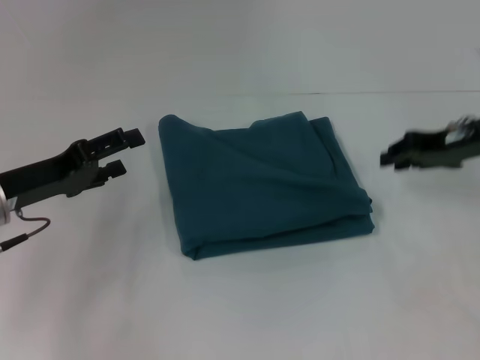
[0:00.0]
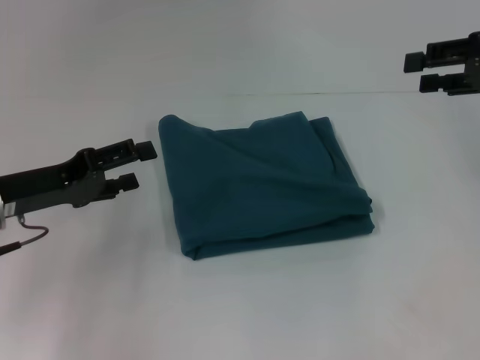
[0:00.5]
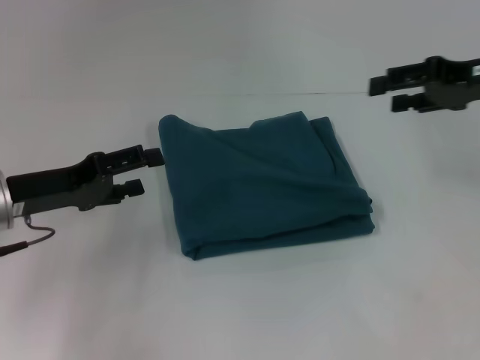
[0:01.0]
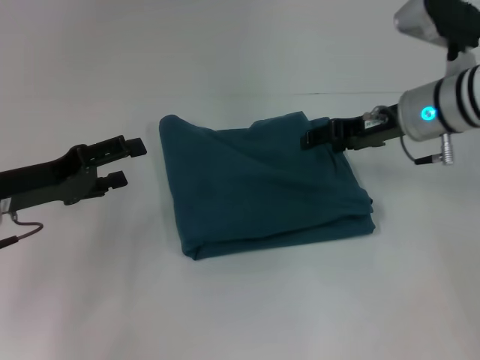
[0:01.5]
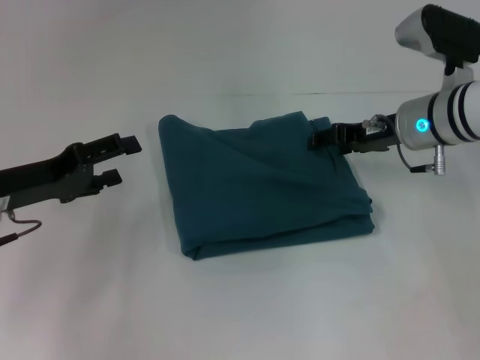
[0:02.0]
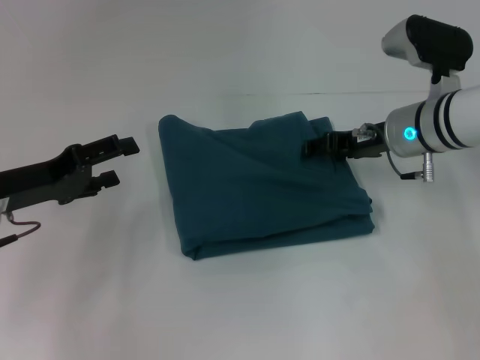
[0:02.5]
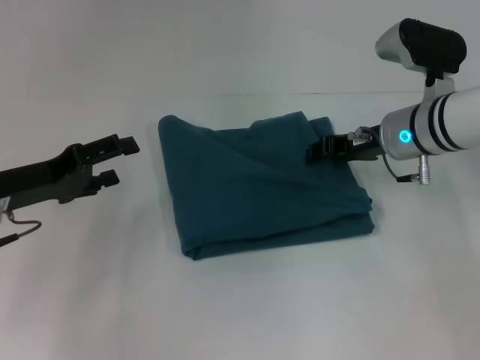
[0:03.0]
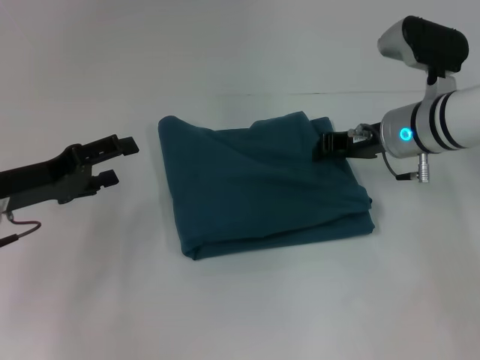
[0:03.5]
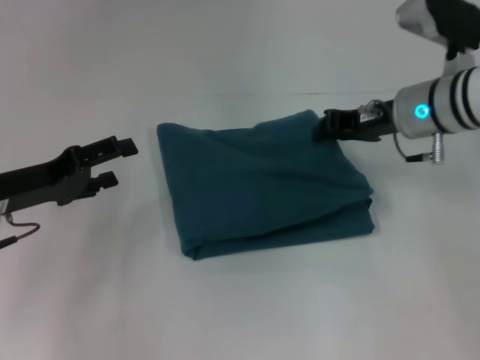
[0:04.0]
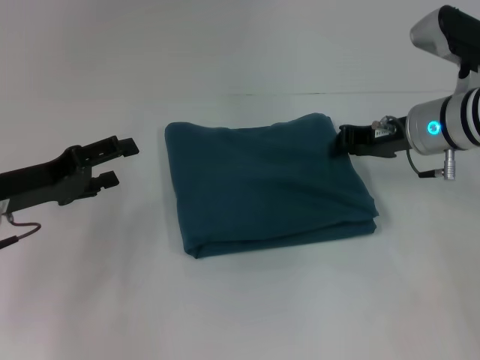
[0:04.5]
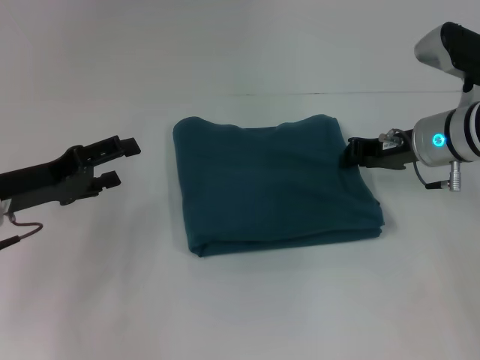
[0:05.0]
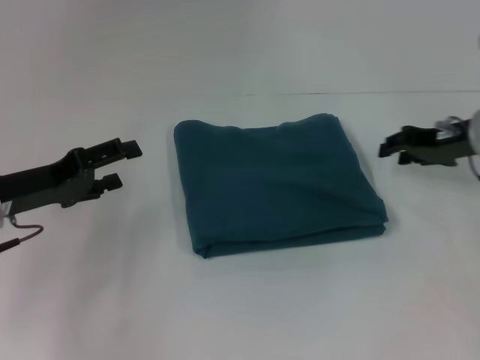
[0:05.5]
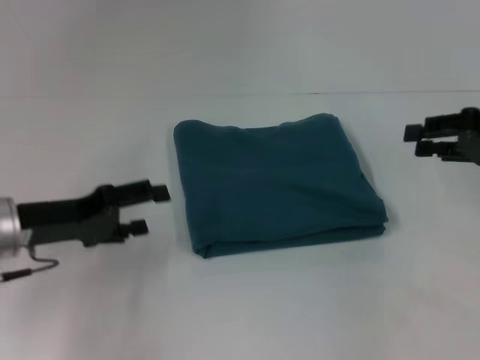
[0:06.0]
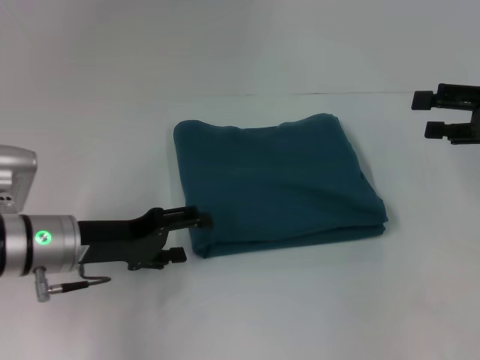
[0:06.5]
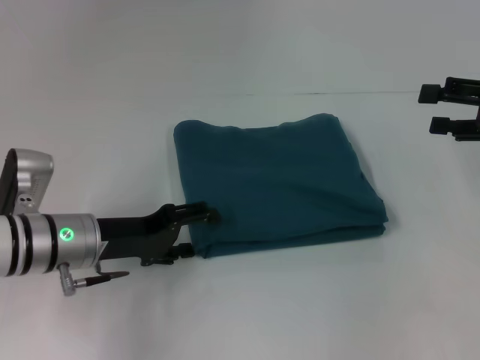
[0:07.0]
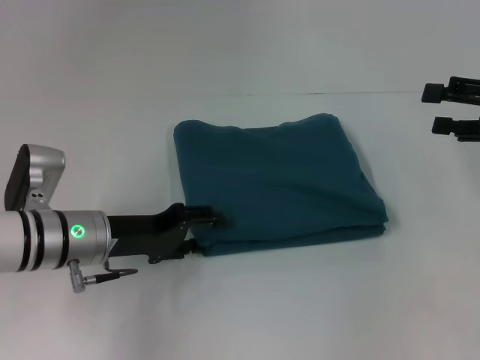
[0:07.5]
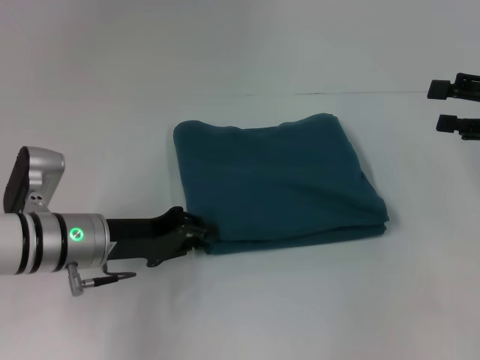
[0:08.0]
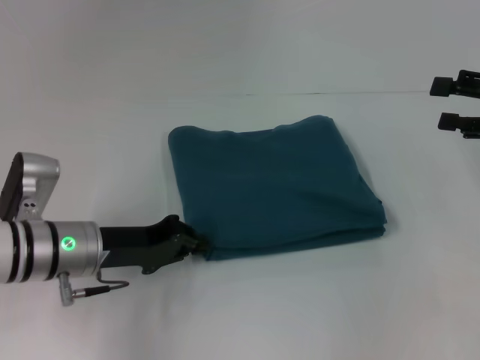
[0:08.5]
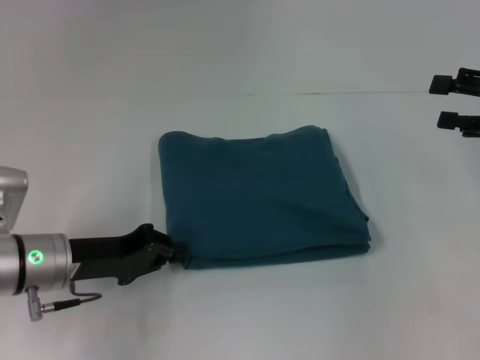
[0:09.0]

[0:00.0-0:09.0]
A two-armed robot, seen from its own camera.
0.0 to 2.0 s: The right gripper goes about 10 cm to the left, and opens up.
2.0 to 4.5 s: The right gripper closes up.
4.5 to 7.0 s: The right gripper shifts about 15 cm to the right and backward, and opens its fingers, while the left gripper is displaced to the right by about 10 cm.
7.0 to 9.0 s: The left gripper closes.

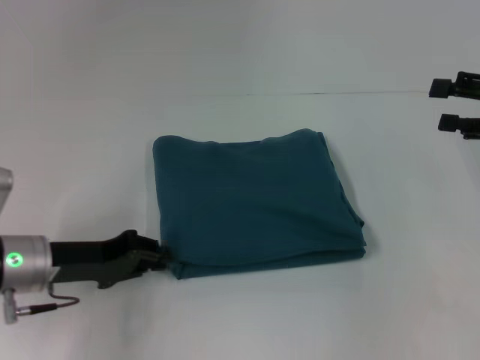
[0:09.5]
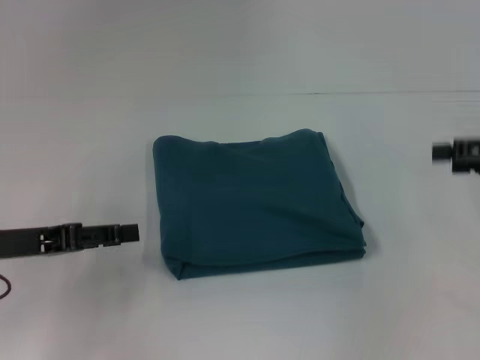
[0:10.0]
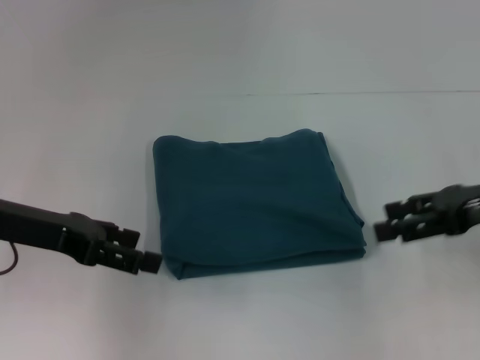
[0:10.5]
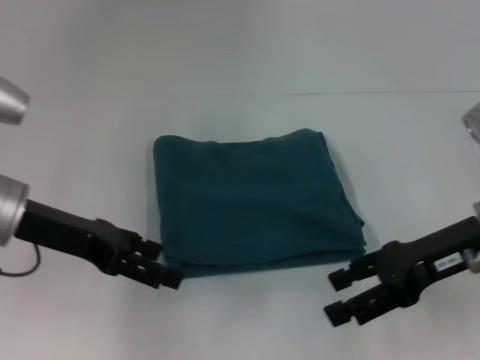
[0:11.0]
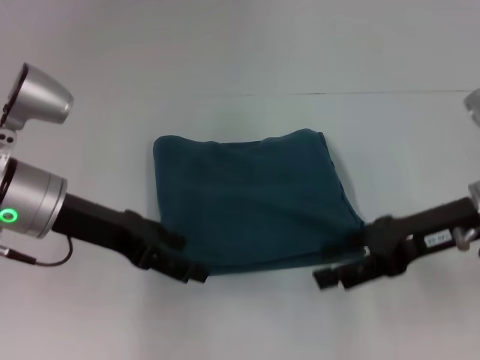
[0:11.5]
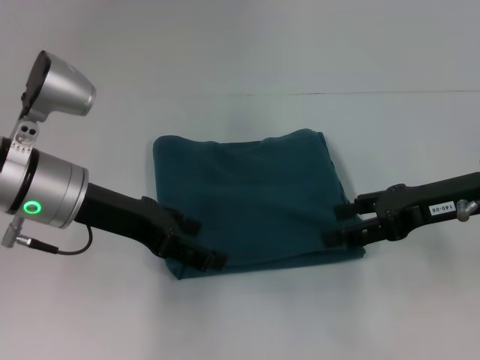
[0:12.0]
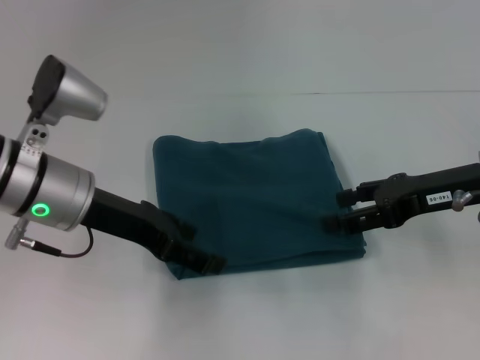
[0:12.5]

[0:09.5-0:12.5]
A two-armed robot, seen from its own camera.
9.5 to 11.0 s: The right gripper travels to the left by approximately 10 cm, while the left gripper is displaced upward by approximately 10 cm, and opens.
11.0 to 12.5 s: The left gripper goes roughly 5 cm to the right.

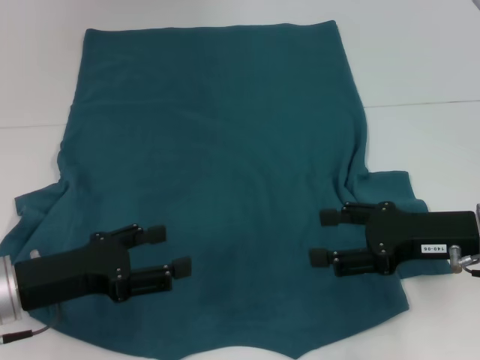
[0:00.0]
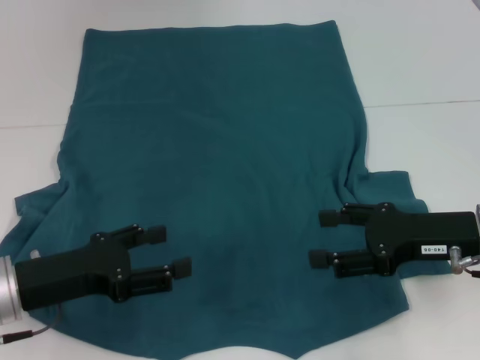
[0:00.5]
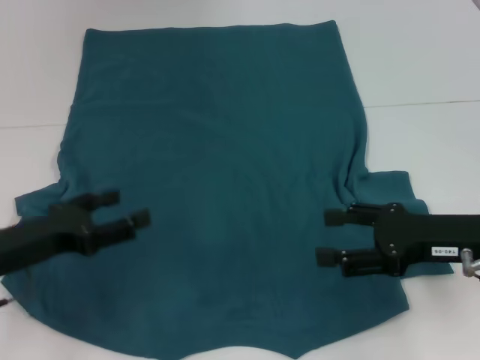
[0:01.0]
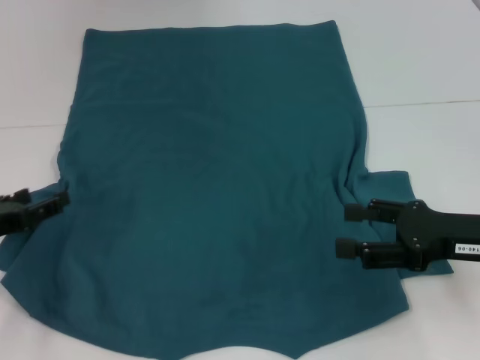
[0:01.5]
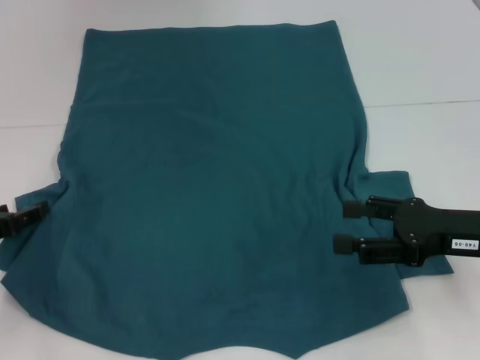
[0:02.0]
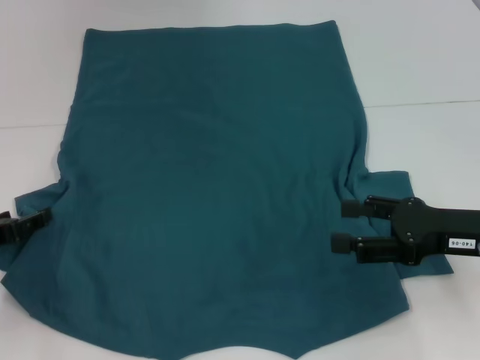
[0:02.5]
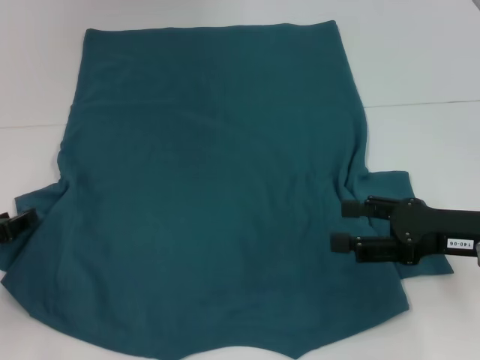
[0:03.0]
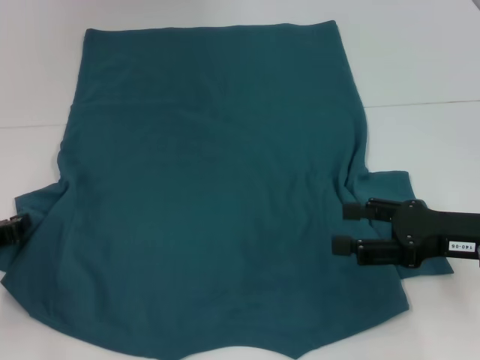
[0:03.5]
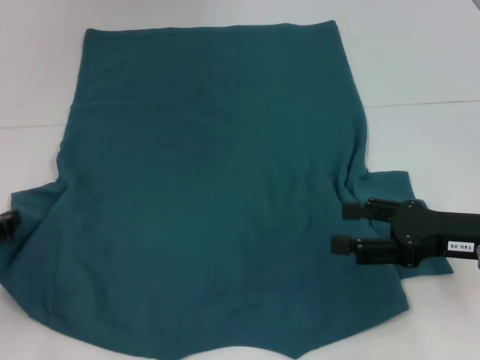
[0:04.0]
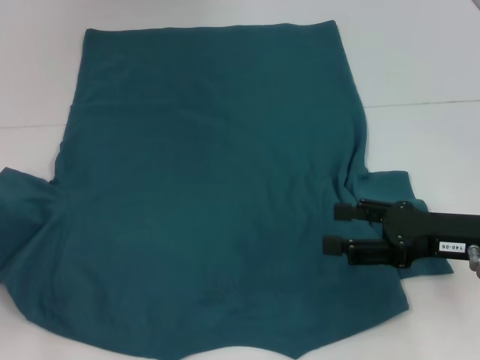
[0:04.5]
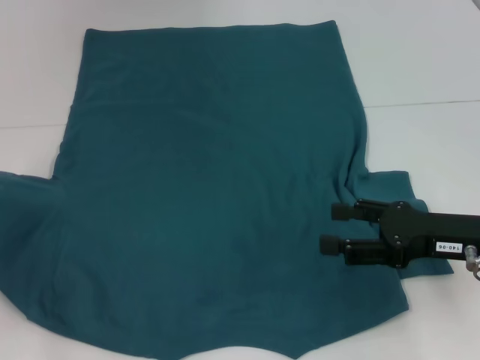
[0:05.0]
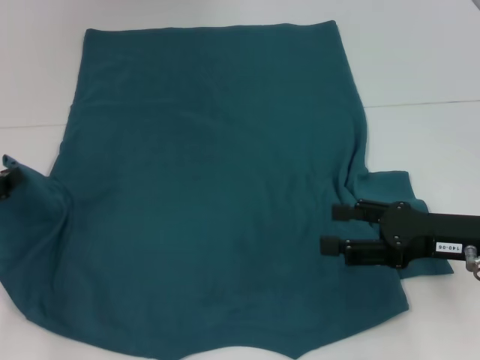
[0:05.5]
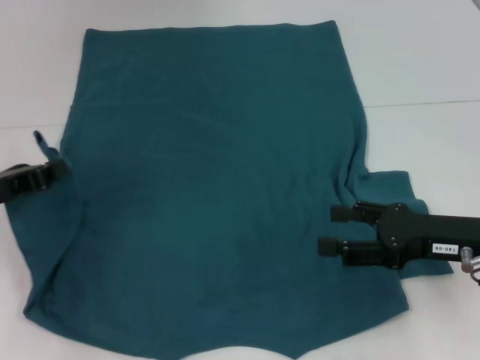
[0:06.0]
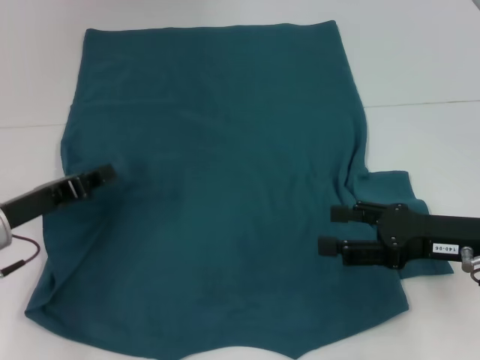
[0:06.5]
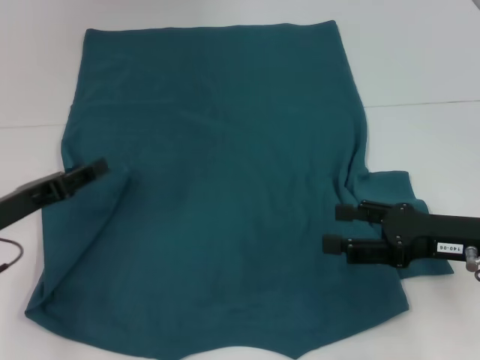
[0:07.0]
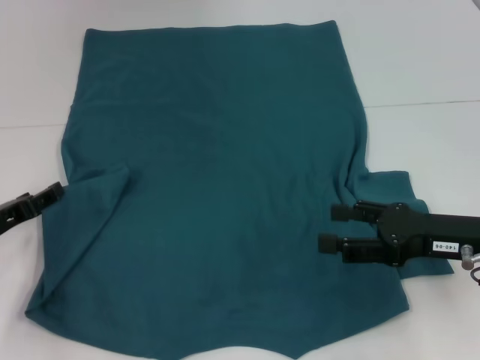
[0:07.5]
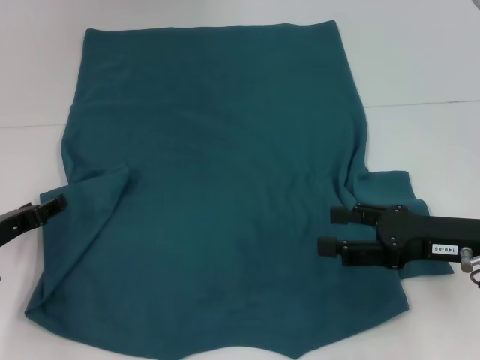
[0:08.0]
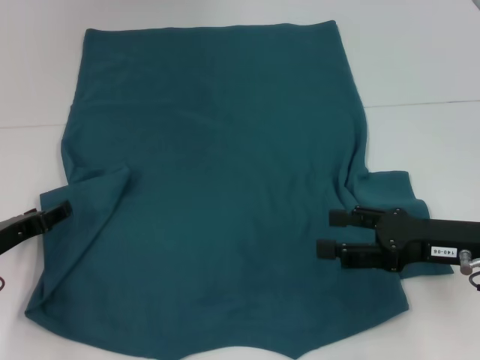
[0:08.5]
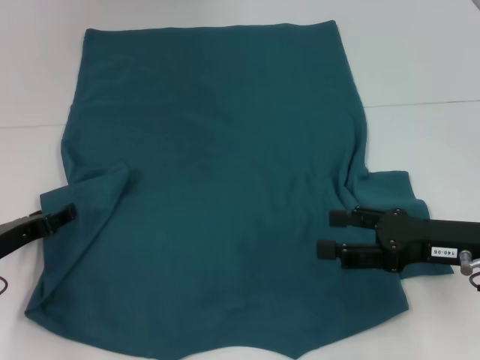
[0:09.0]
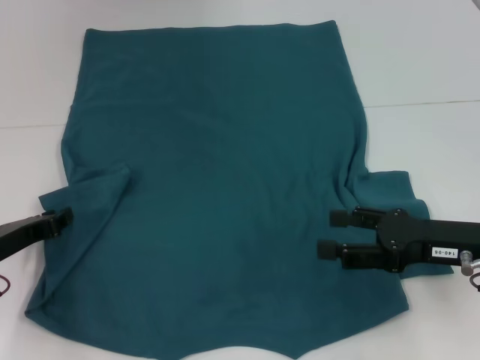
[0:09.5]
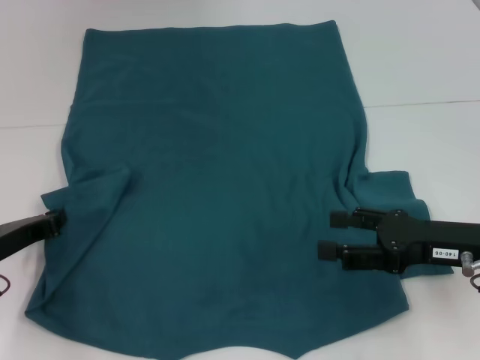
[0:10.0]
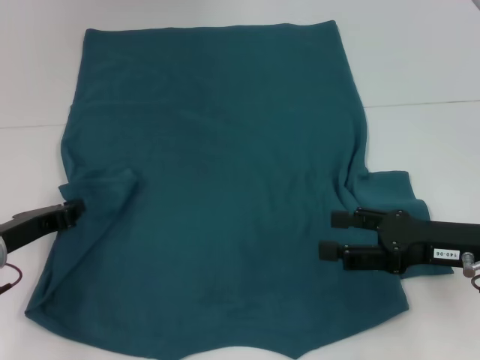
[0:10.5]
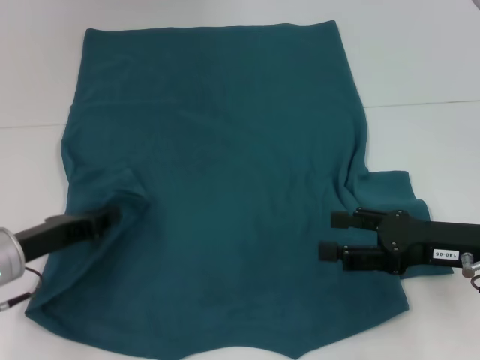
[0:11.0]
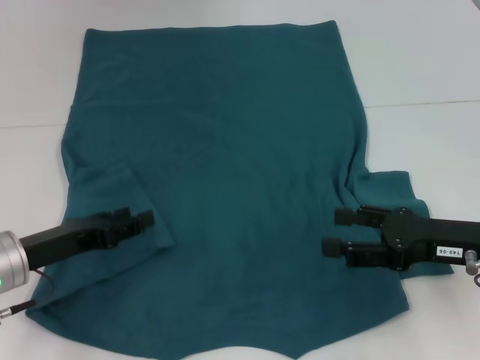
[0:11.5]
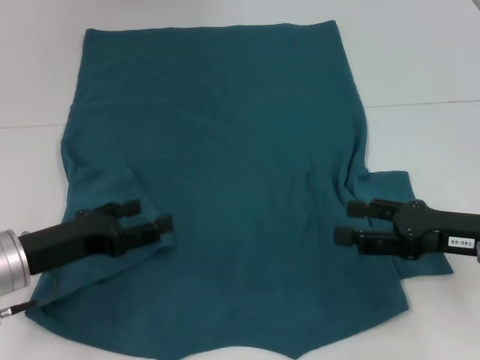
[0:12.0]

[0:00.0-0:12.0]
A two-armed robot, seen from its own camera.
Step, 0.0 to 11.5 s: Fold the bottom left sleeve with your left hand.
0.0 to 2.0 s: The left gripper moves to the left, some 10 cm.
2.0 to 4.0 s: The left gripper closes its fingers.
4.0 to 6.0 s: The left gripper moves approximately 5 cm.
6.0 to 8.0 s: The left gripper heads downward, covering roughly 5 cm, and opens its fingers.
8.0 to 10.0 s: The left gripper closes up.
10.0 to 12.0 s: The left gripper shifts by approximately 5 cm, and opens.

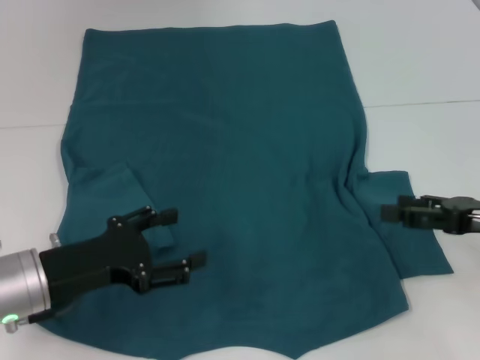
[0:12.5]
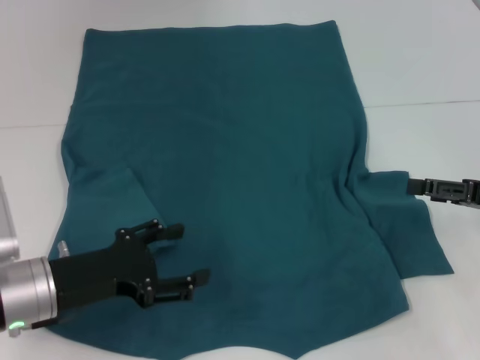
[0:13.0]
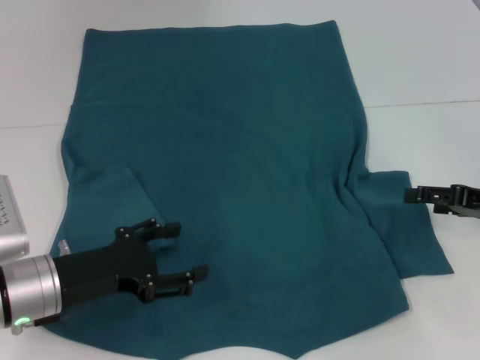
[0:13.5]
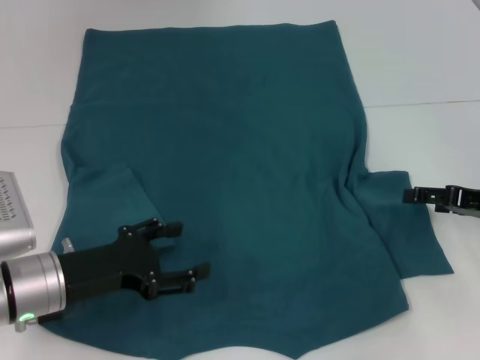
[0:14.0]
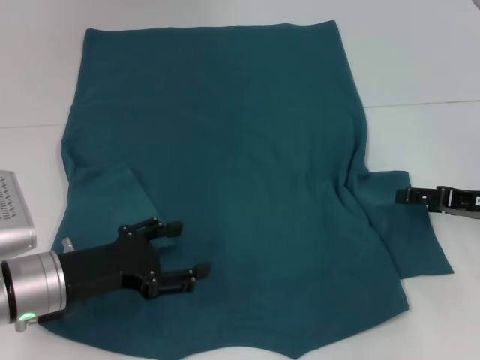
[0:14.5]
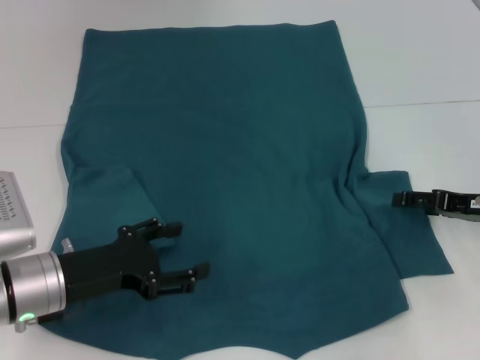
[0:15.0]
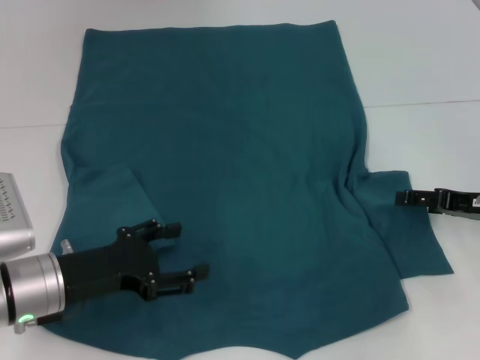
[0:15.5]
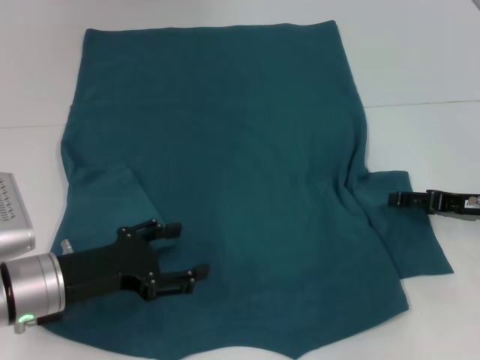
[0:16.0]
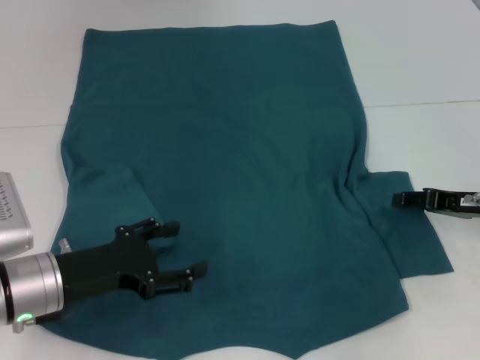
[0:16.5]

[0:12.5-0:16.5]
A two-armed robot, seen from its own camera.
12.5 to 14.5 s: The right gripper shifts by approximately 5 cm.
14.5 to 16.5 s: There are only small adjustments of the grippers.
